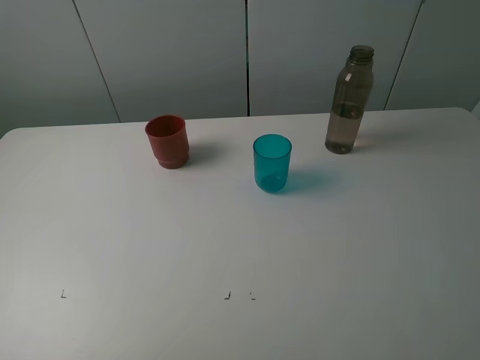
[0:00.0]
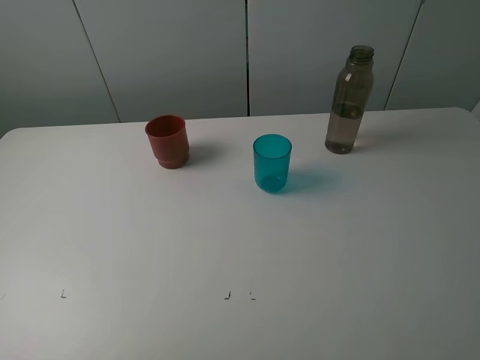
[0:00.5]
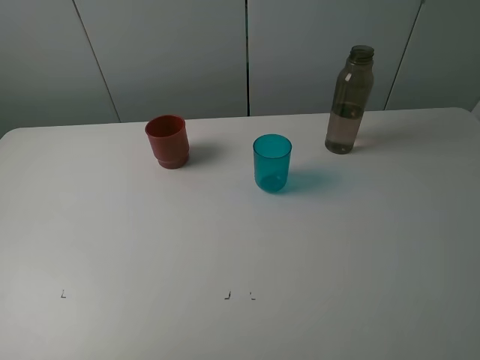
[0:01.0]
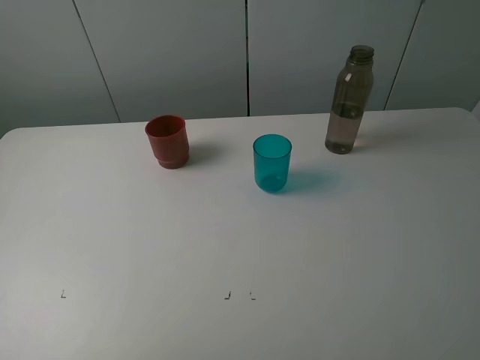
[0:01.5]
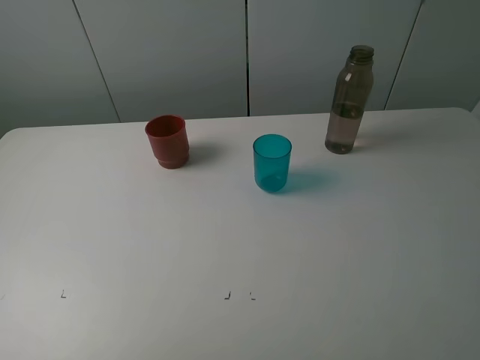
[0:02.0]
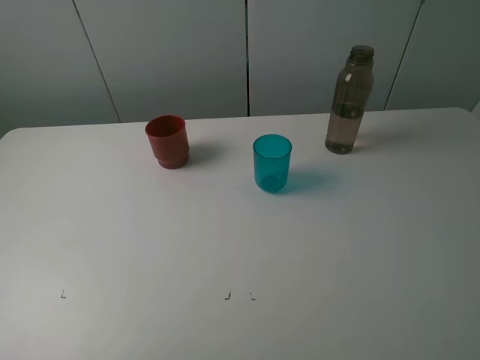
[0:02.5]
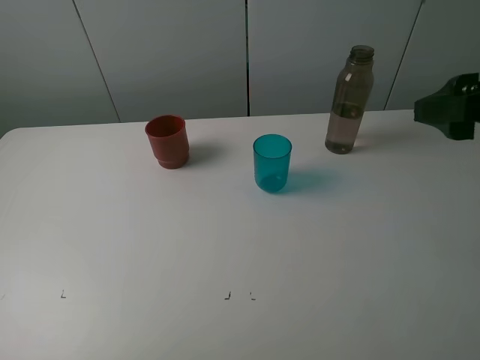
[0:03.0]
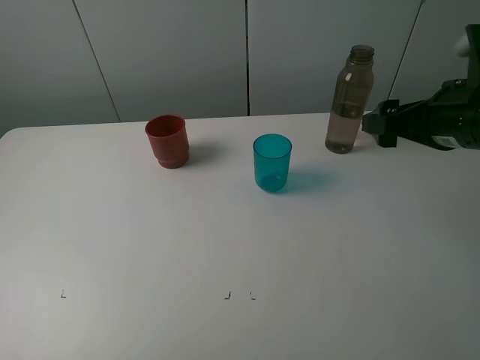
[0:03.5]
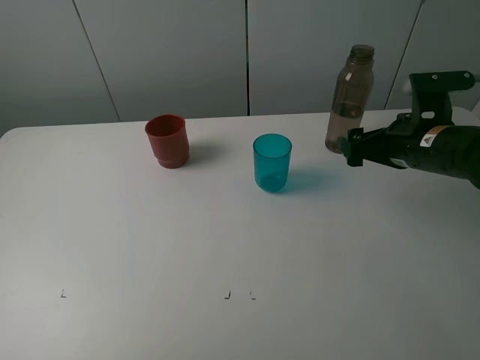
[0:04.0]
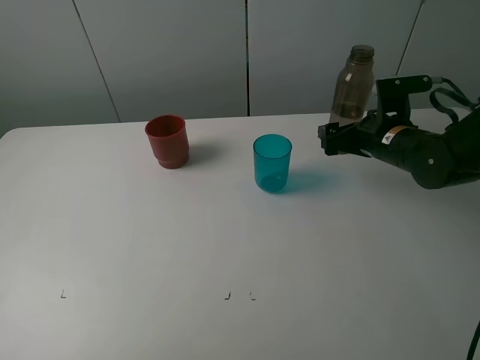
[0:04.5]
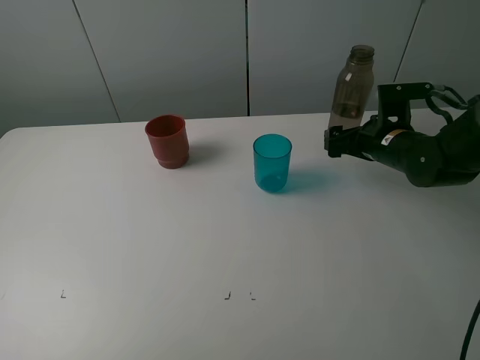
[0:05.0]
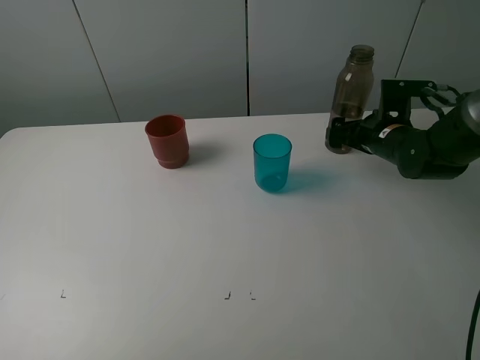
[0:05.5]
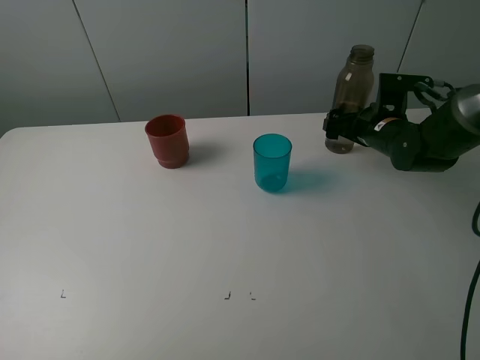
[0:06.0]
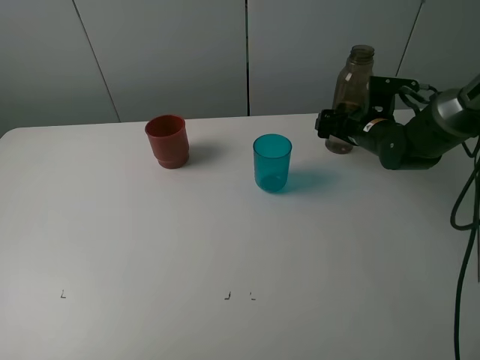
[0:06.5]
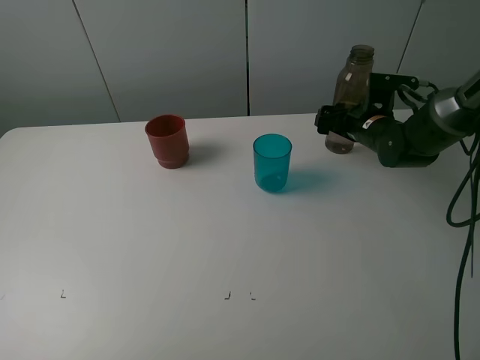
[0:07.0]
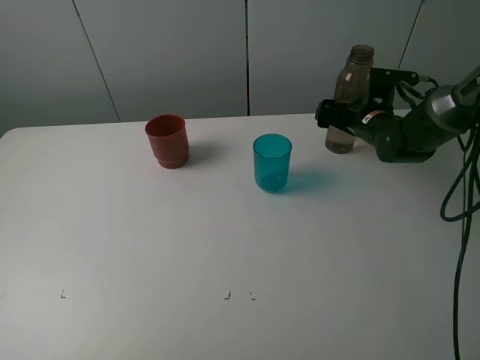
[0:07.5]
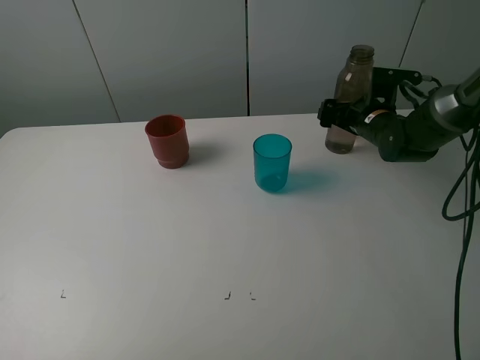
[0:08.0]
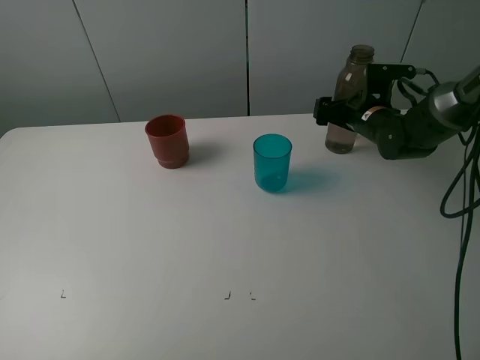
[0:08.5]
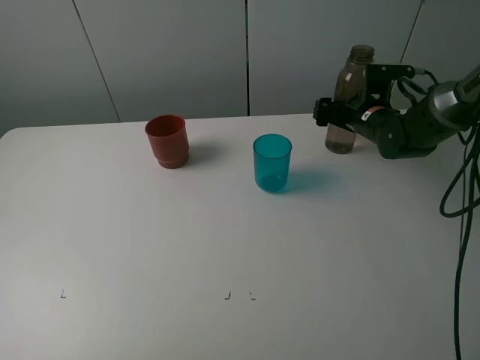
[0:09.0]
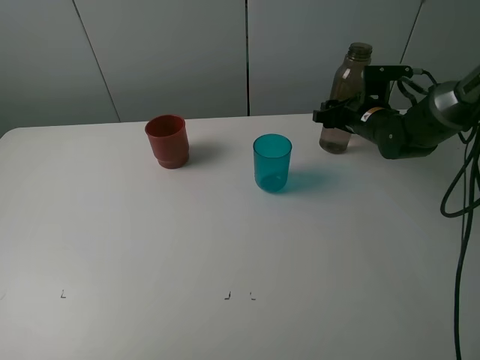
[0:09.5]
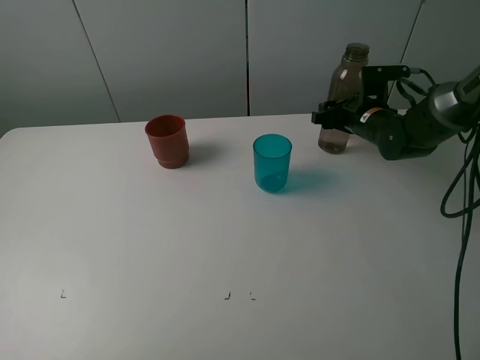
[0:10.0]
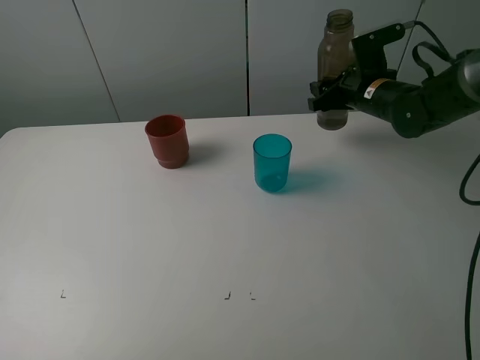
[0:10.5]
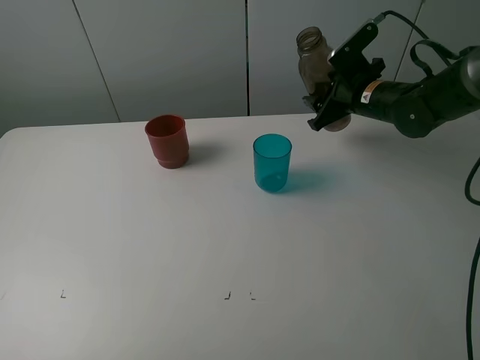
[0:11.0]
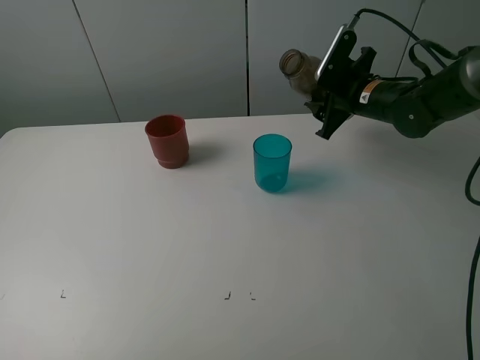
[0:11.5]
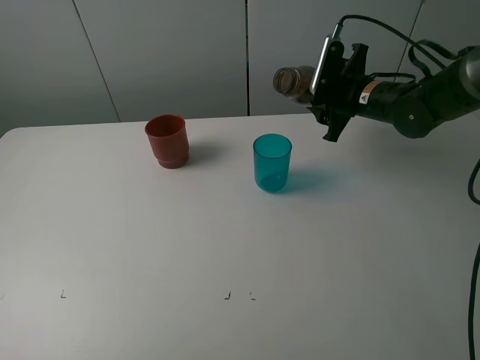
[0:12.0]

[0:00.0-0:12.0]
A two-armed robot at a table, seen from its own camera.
Task of the whole recording: pick up the bottle and pour water into the cup, then pick up the cup containing water and pour it into another cup.
Step, 0.0 to 9.0 s: Grasp the brown bottle with the right gripper.
0.0 to 2.0 s: The two grippers keep their place.
2.0 to 4.0 s: The right gripper heads forward and downward, covering some 30 cm.
4.0 to 6.0 s: The right gripper goes about 10 cm forward.
6.0 to 8.0 s: The grippers make only small movements.
8.0 to 10.0 s: The right gripper closes up.
10.0 to 12.0 s: The right gripper is displaced upward by roughly 5 cm.

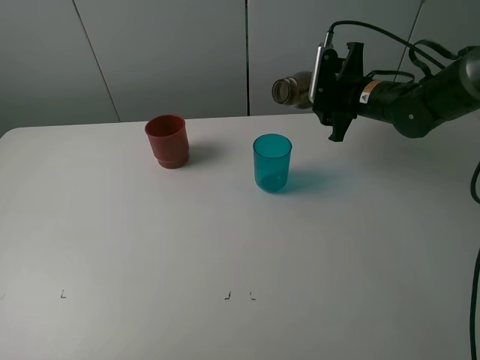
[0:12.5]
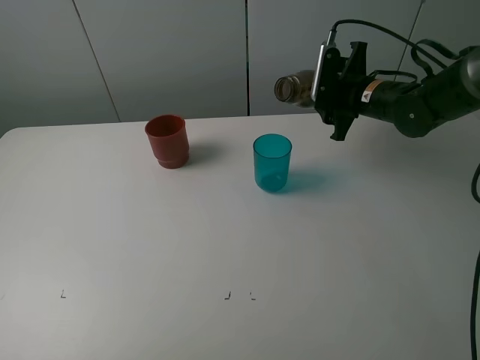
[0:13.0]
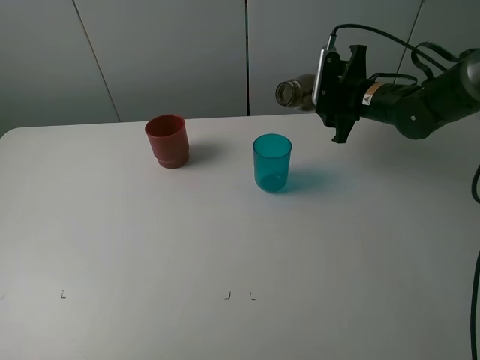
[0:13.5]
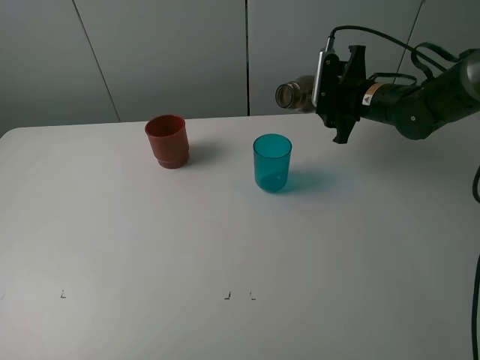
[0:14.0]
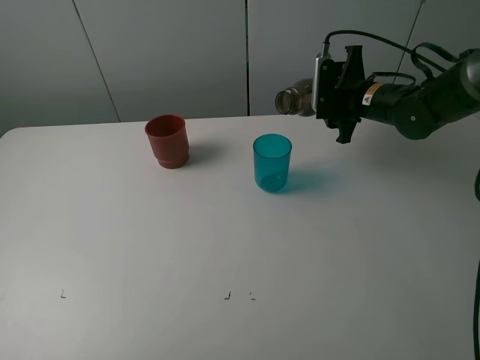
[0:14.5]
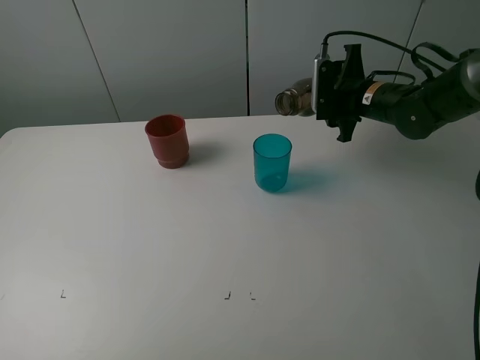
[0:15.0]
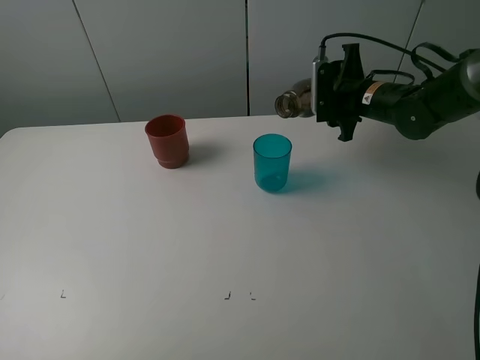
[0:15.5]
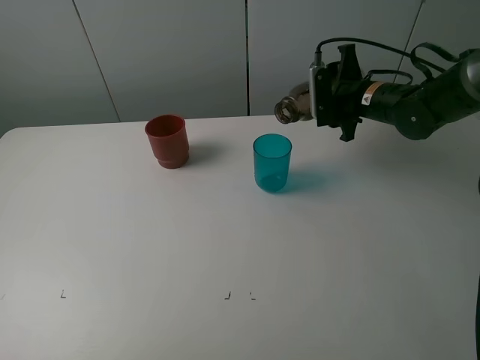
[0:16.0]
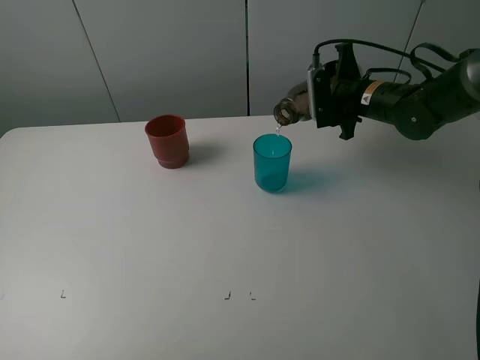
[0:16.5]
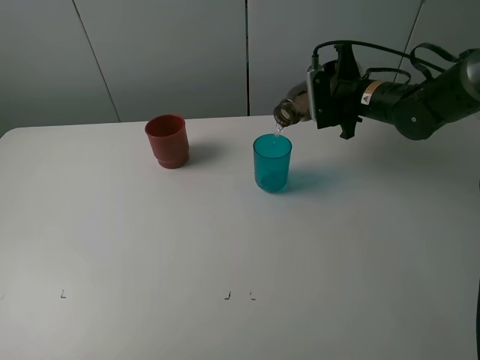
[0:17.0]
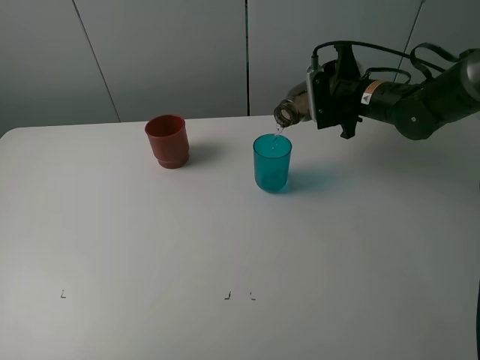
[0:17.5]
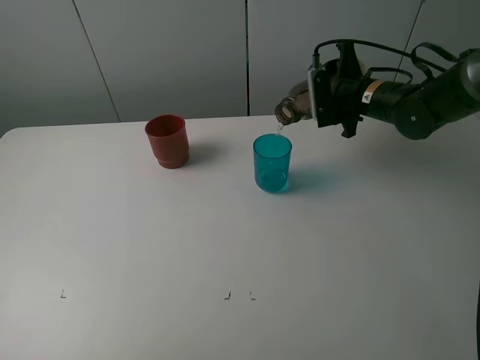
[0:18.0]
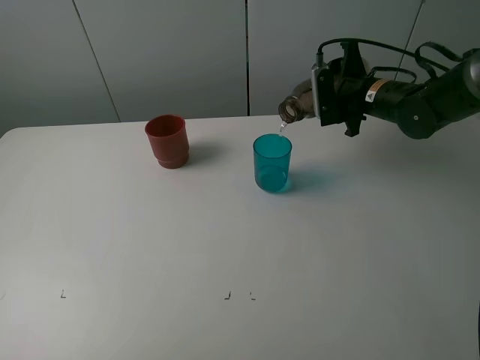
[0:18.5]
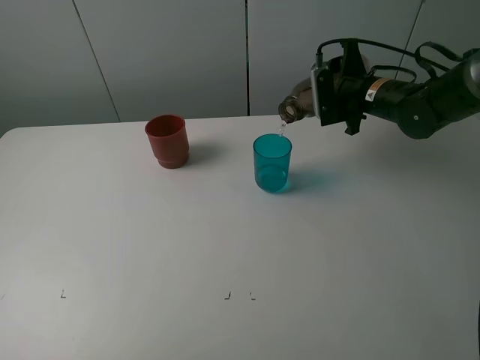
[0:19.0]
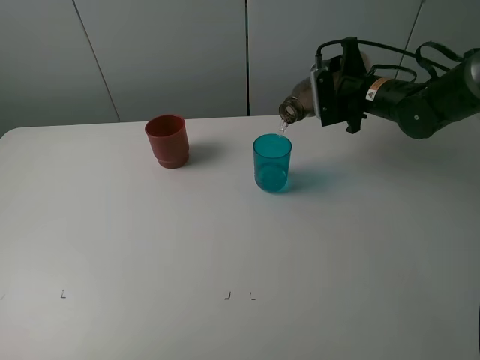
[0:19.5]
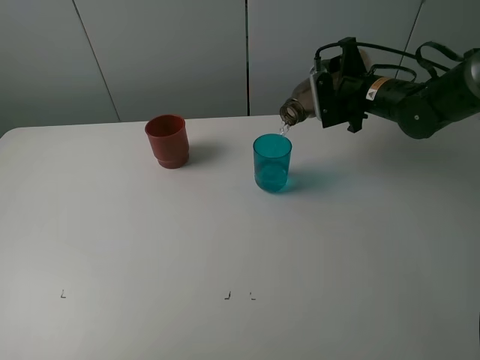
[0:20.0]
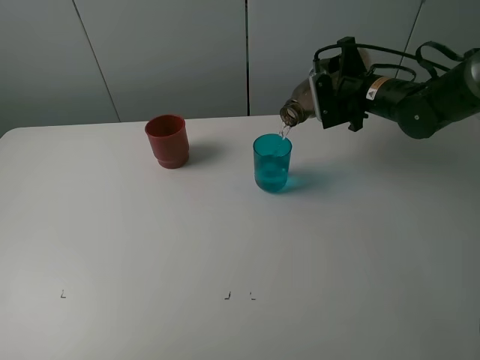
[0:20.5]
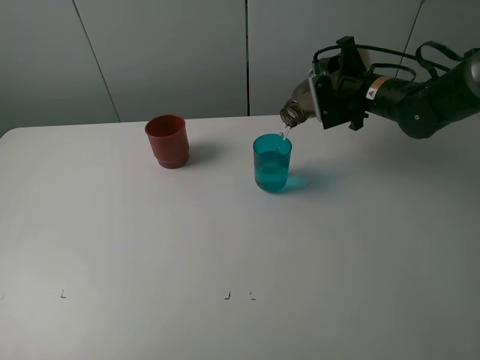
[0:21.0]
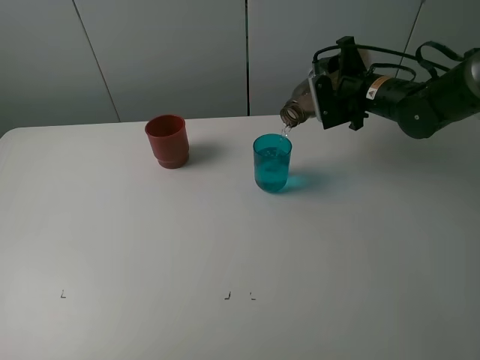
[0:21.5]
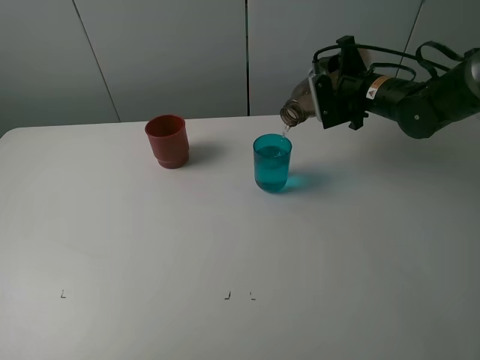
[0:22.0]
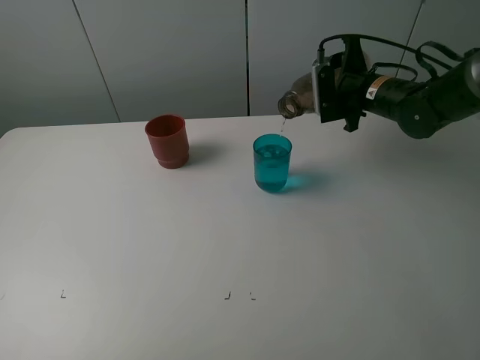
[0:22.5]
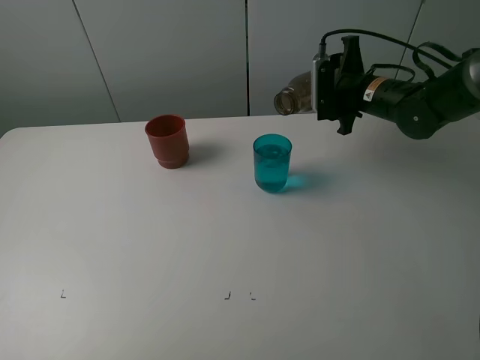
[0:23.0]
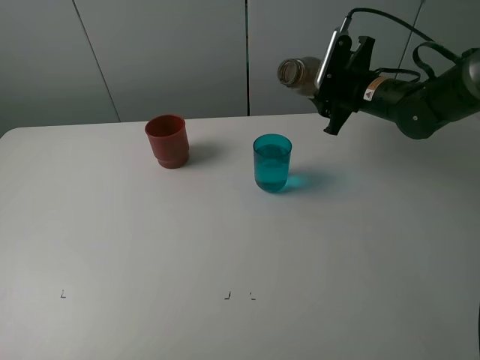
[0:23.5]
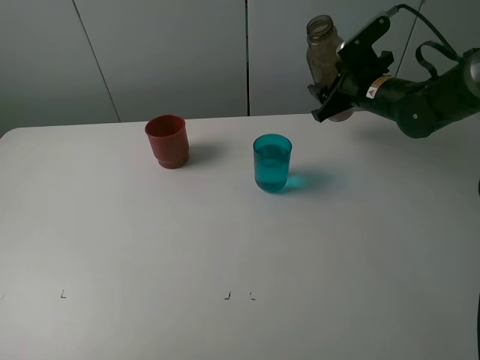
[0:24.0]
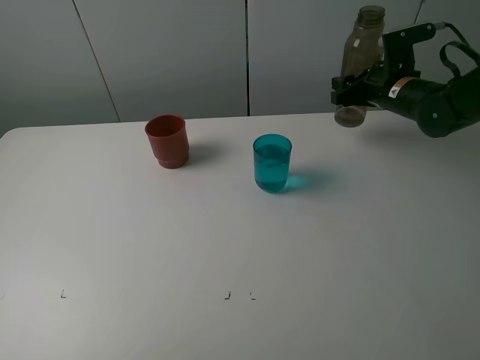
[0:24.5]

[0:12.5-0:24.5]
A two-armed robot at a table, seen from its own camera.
Task of the whole recording: pick up the bottle and pour water into the cup, then pick up the cup containing water and pour it into another cup.
Step, 12.5 to 22.5 s: Pour water from brown bottle to blue cup with the right gripper.
12.5 to 16.5 s: The grippers make only small movements.
16.5 to 18.5 s: Both grippers stay about where they are.
18.5 to 22.5 s: There are only small adjustments of the grippers.

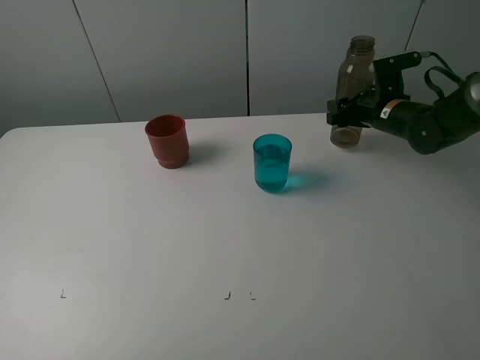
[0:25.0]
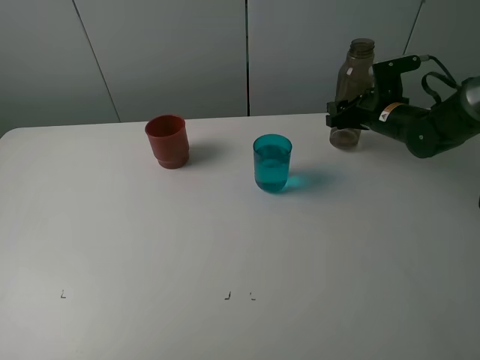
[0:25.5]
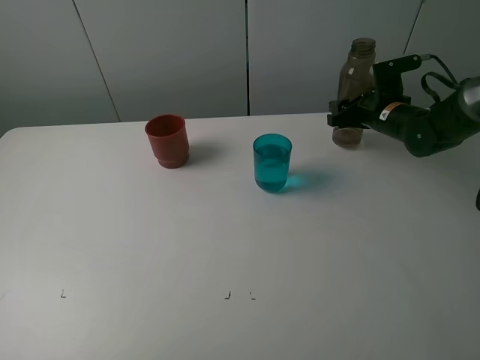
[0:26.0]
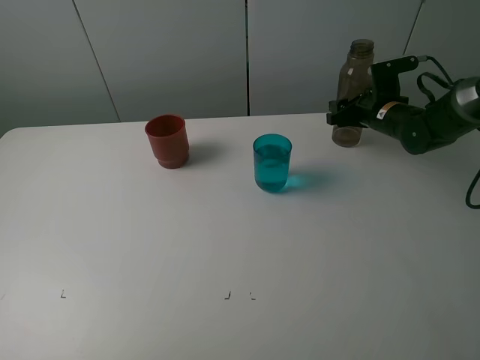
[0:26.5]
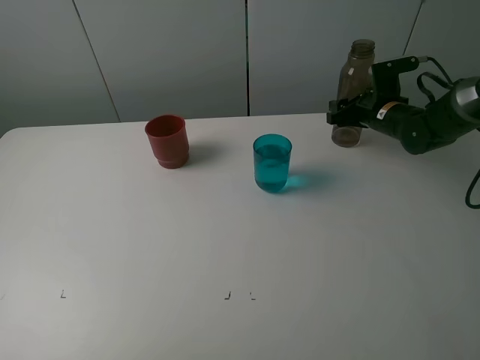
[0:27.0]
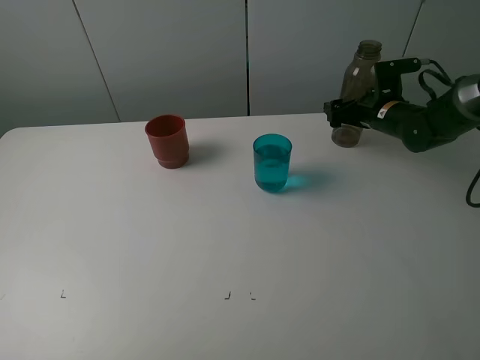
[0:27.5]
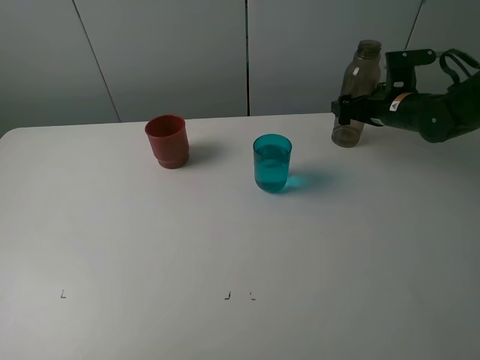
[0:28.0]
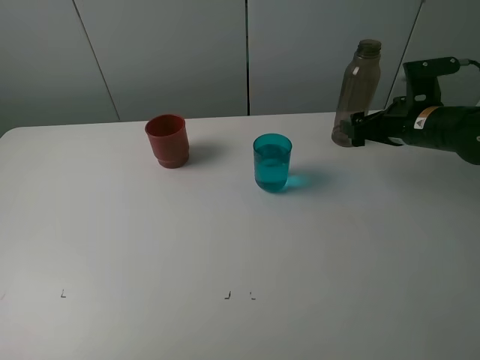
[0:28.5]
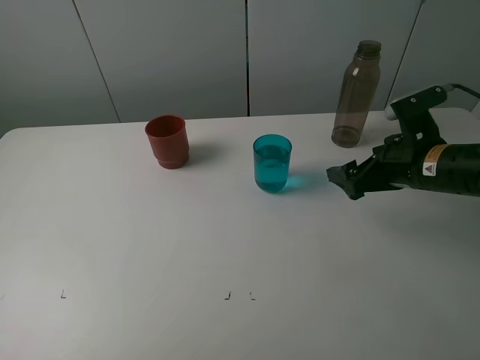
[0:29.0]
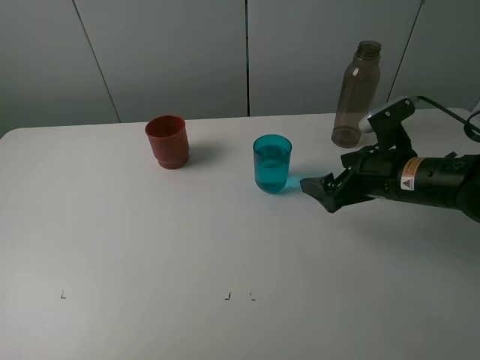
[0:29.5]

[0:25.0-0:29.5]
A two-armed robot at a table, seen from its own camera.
Task of the whole recording: pick up the bottle and pour water into the cup, then pick up the cup containing water and pour it into another cup.
Step, 25.0 to 27.5 s: Place the brown bottle with the right gripper.
25.0 to 27.0 s: The grippers move only a little.
27.0 to 29.5 s: The right gripper travels backward by approximately 20 cm, and opens its fingers.
